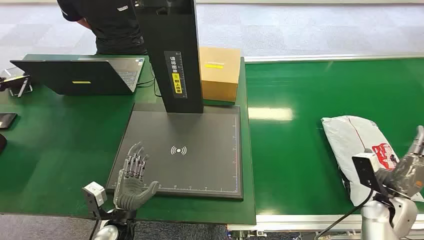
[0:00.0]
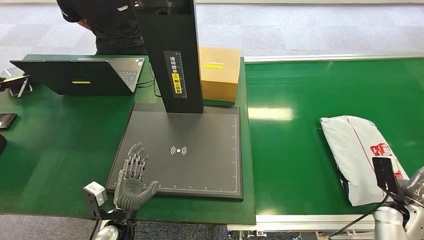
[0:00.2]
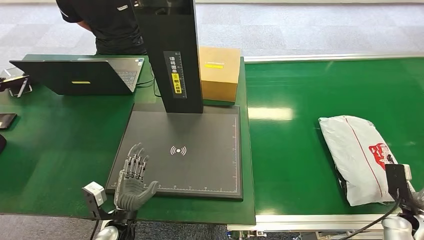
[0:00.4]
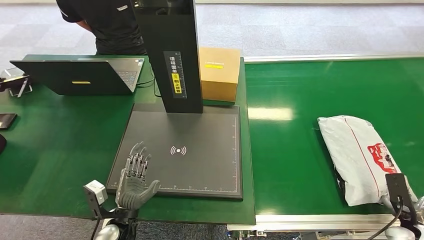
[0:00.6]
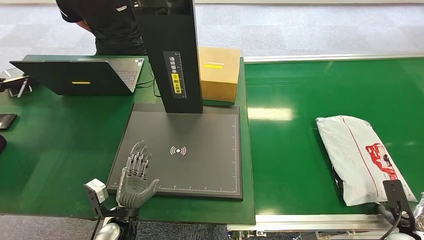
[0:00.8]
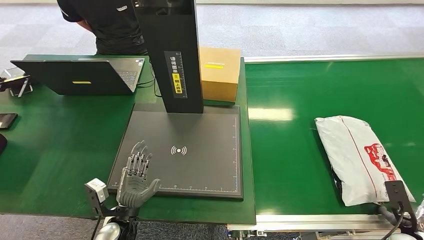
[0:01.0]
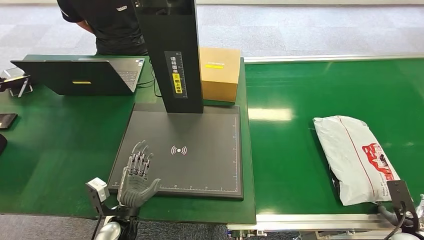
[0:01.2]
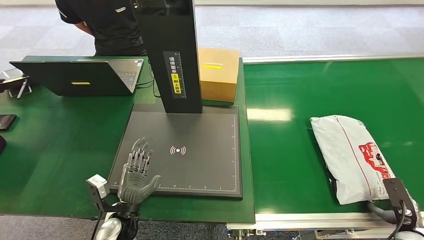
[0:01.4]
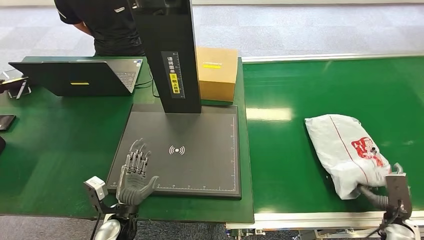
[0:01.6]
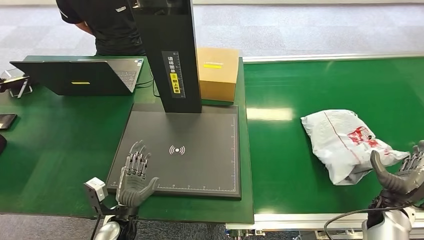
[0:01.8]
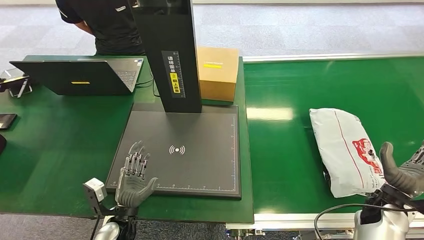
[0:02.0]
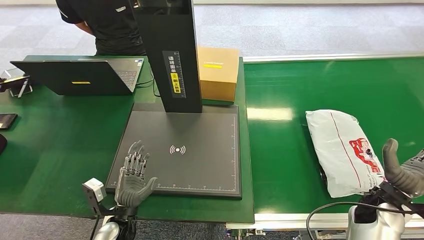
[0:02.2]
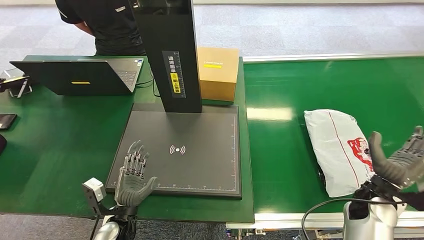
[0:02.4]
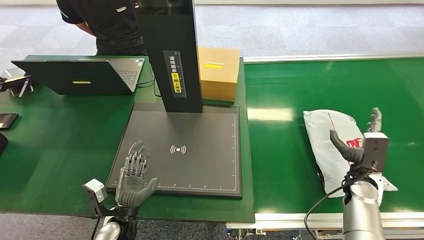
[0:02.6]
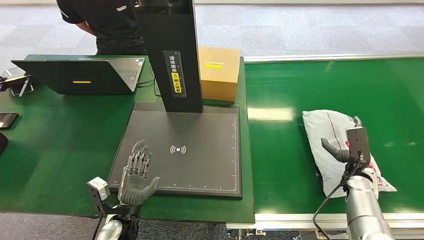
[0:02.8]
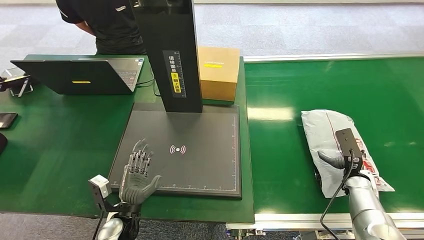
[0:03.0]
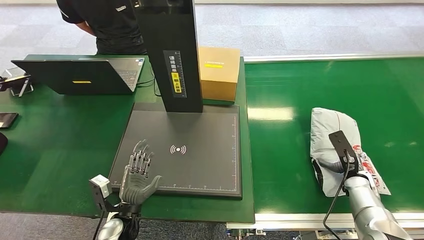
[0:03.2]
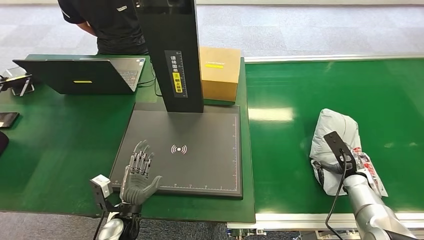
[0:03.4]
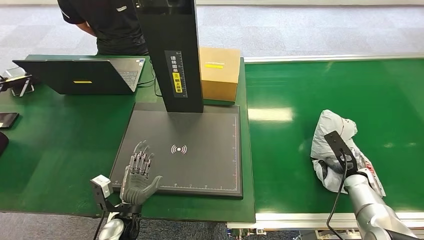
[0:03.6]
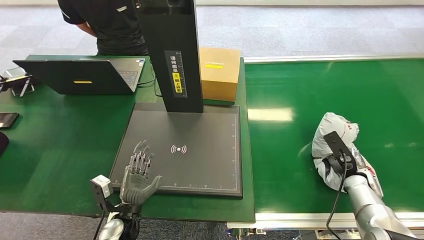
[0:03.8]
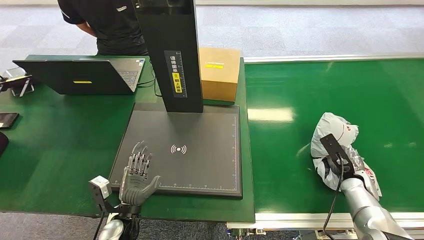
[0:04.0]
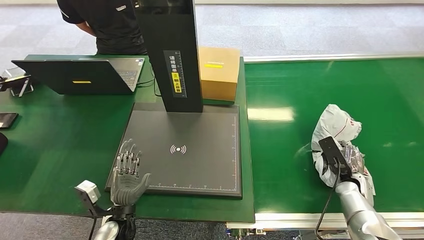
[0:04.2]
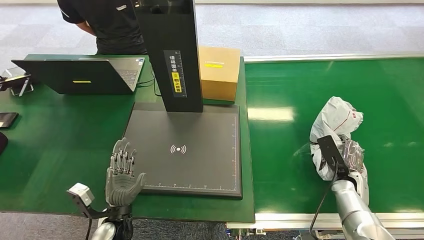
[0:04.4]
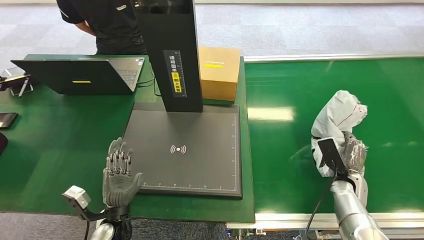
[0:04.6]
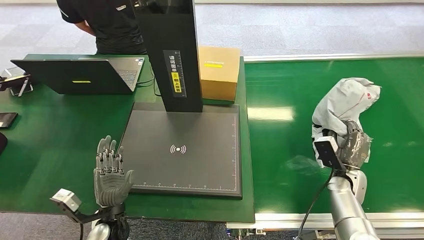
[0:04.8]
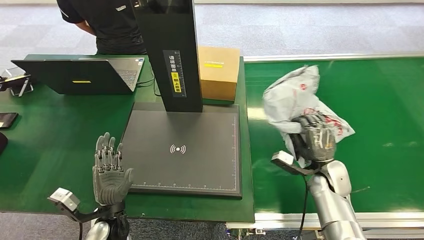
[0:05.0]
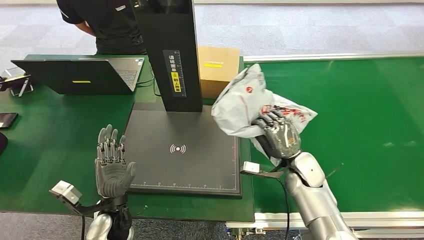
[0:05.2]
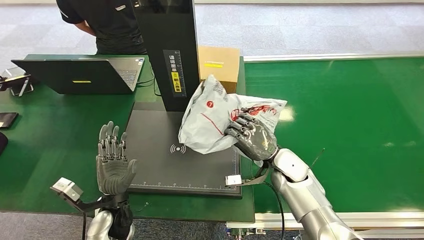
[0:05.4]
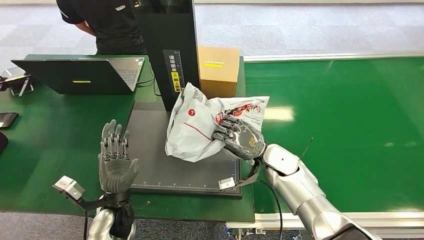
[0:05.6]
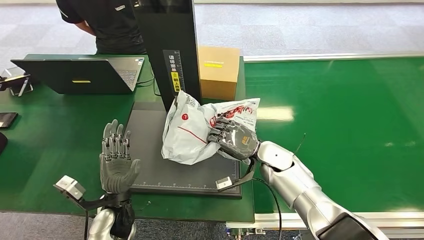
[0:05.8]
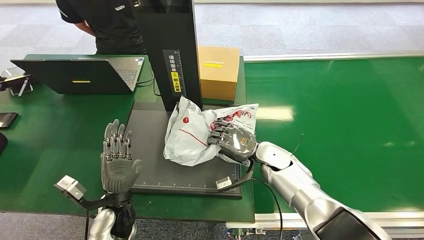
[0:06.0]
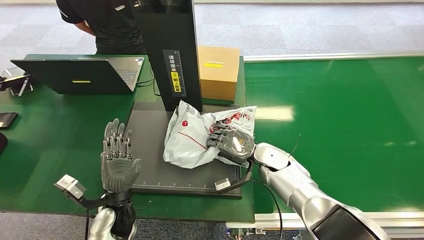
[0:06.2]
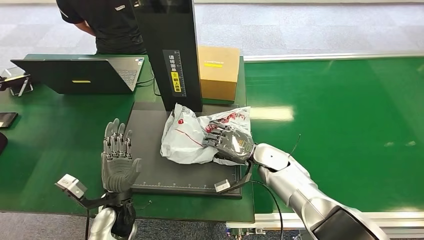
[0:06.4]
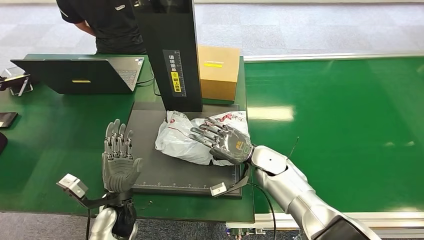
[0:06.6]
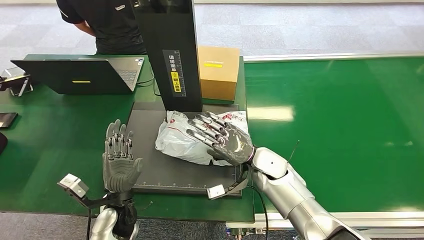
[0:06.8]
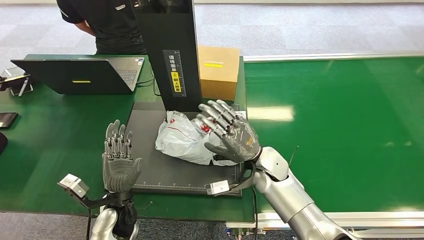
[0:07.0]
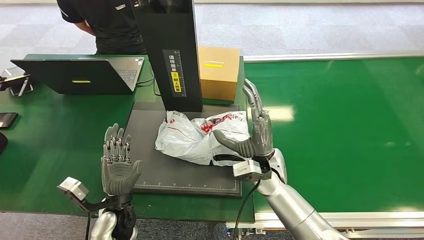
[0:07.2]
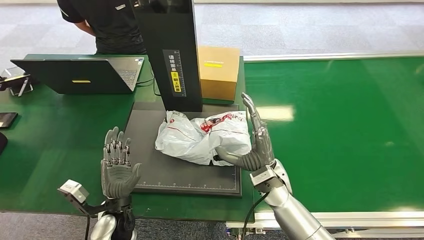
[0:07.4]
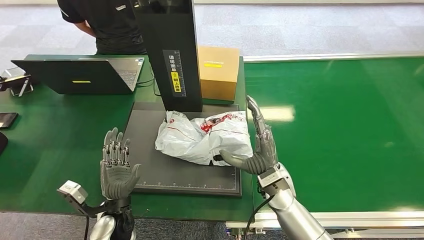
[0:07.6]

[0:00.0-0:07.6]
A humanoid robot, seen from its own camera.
Step, 0:00.0 to 0:04.8: Pick up the package from the conveyor belt.
Step, 0:05.0 to 0:07.6: Place the package onto the inbound machine.
0:01.6 to 0:03.0: The right hand is displaced forward, to the left and upward by approximately 15 cm.
0:06.0 to 0:07.6: The right hand travels backward by some 10 cm.

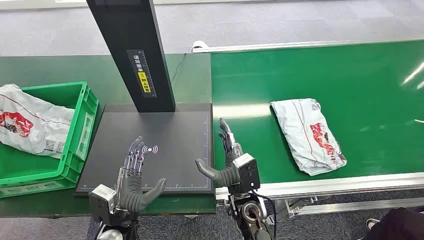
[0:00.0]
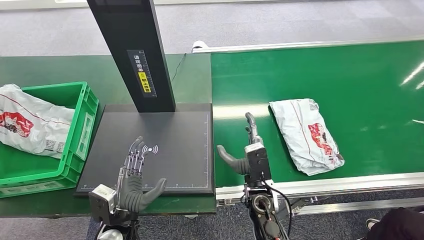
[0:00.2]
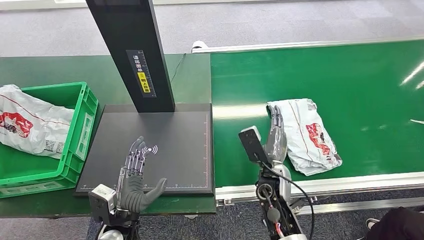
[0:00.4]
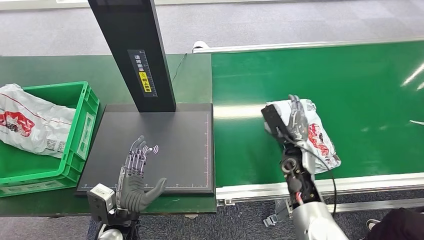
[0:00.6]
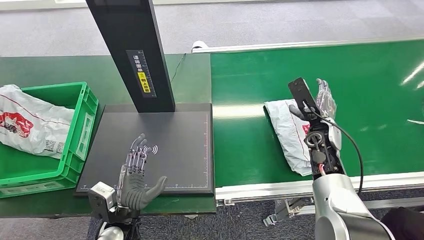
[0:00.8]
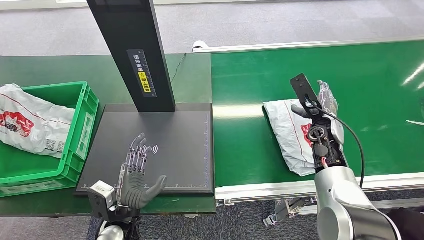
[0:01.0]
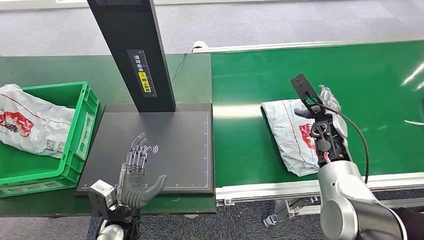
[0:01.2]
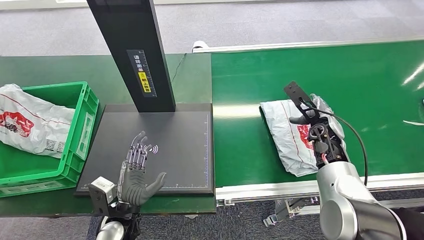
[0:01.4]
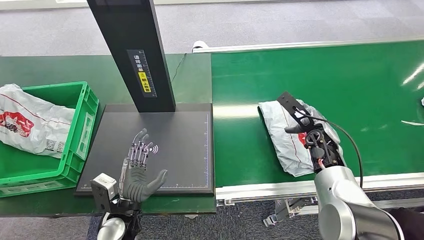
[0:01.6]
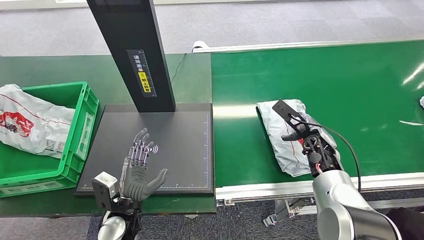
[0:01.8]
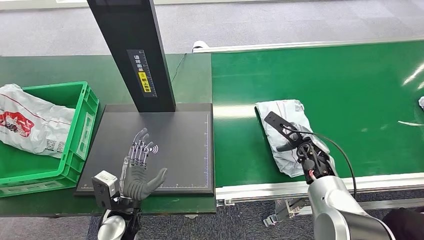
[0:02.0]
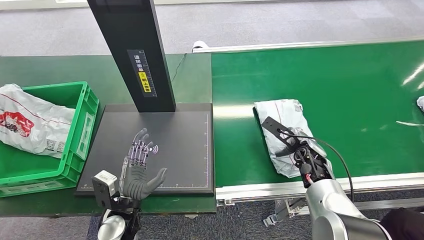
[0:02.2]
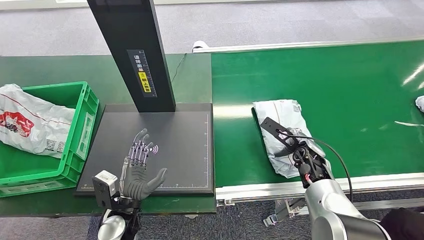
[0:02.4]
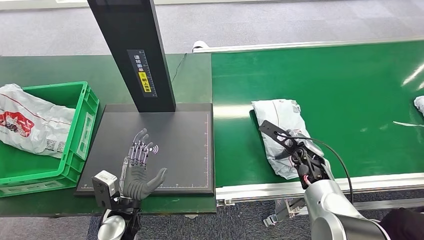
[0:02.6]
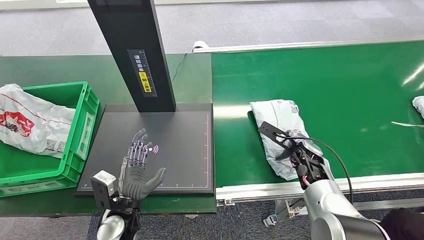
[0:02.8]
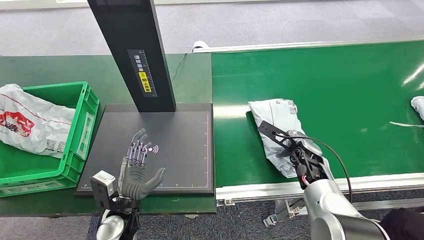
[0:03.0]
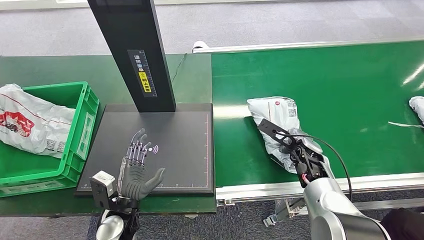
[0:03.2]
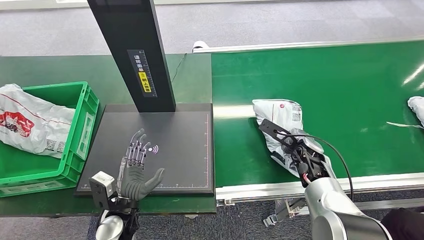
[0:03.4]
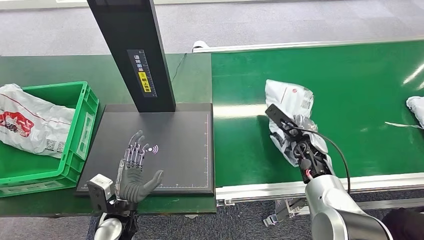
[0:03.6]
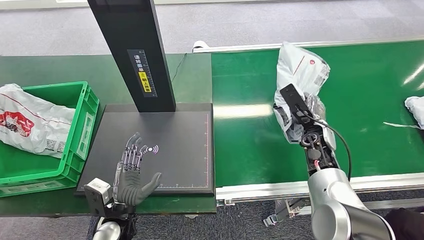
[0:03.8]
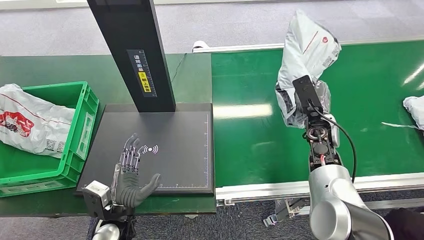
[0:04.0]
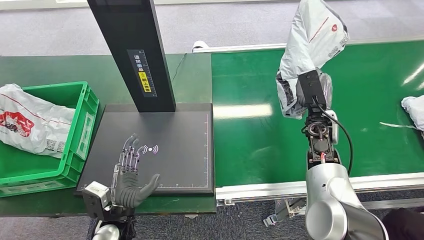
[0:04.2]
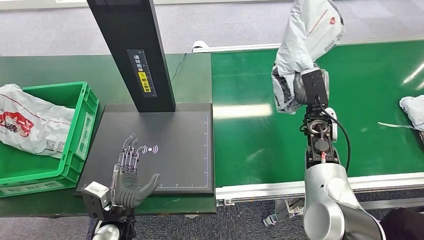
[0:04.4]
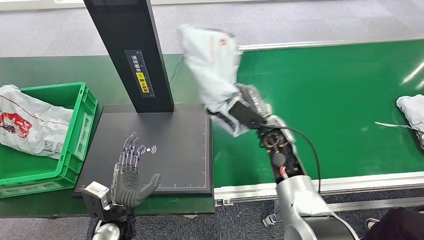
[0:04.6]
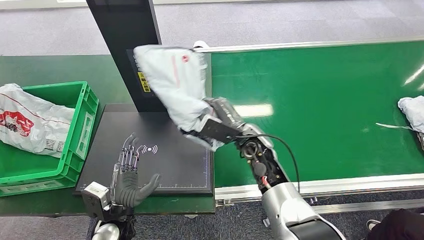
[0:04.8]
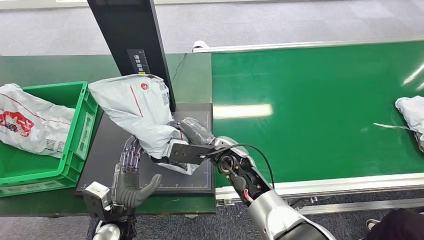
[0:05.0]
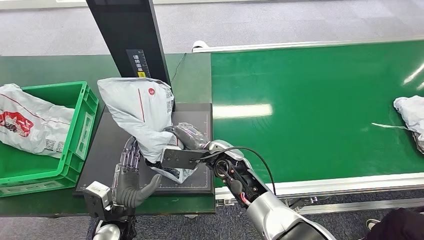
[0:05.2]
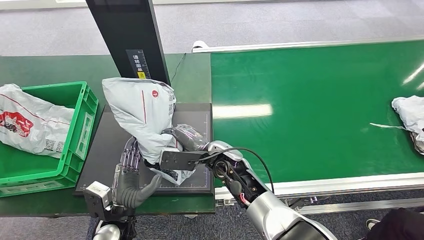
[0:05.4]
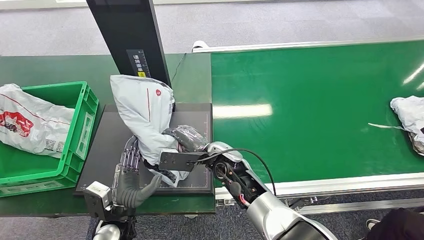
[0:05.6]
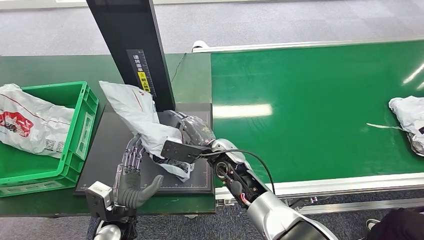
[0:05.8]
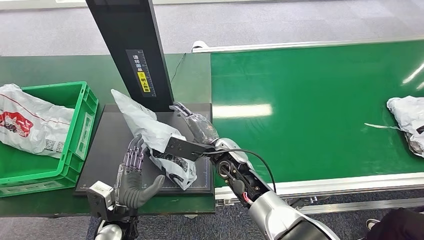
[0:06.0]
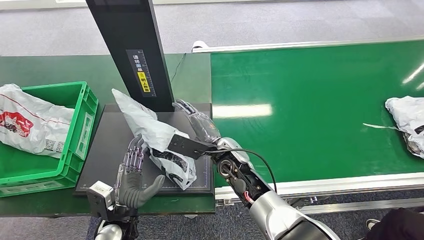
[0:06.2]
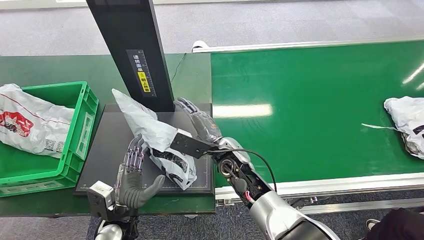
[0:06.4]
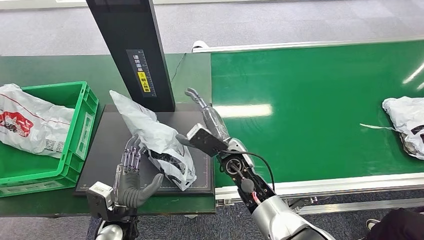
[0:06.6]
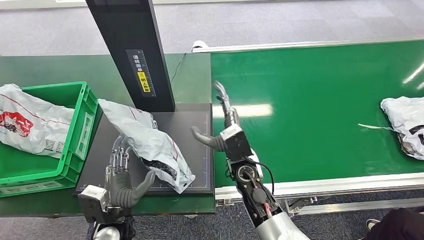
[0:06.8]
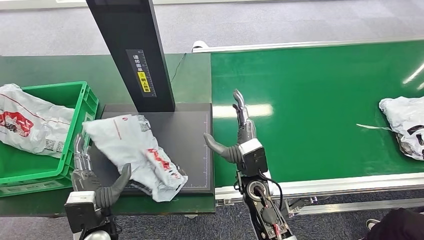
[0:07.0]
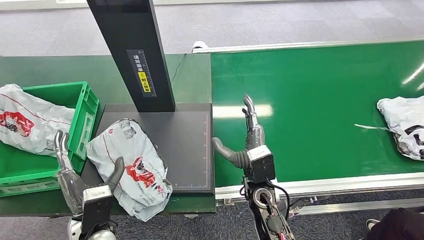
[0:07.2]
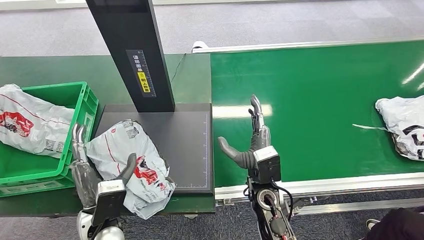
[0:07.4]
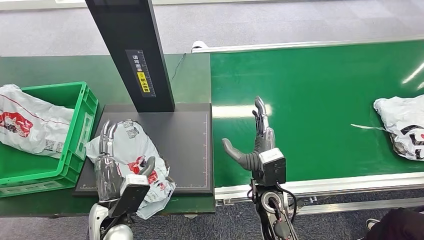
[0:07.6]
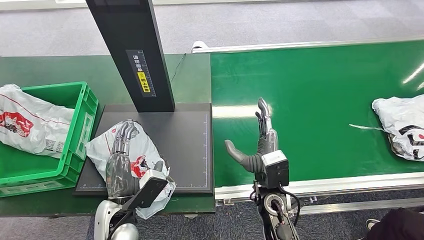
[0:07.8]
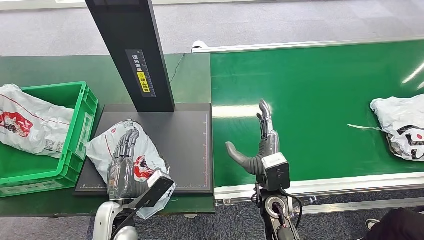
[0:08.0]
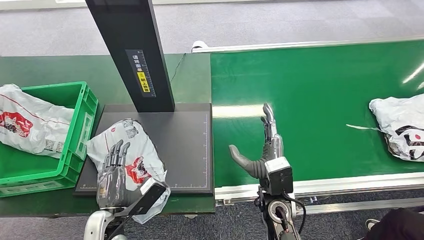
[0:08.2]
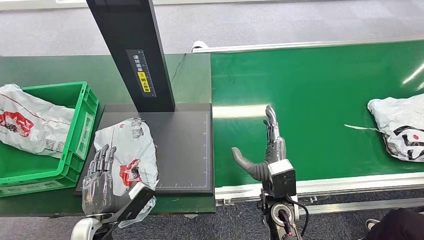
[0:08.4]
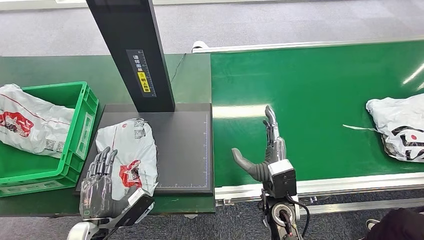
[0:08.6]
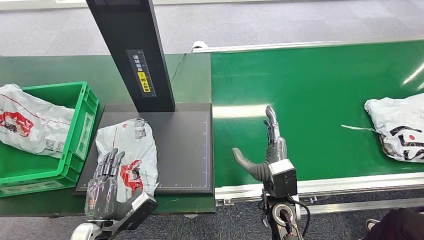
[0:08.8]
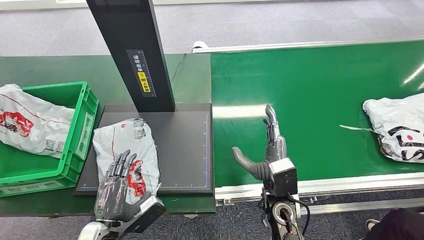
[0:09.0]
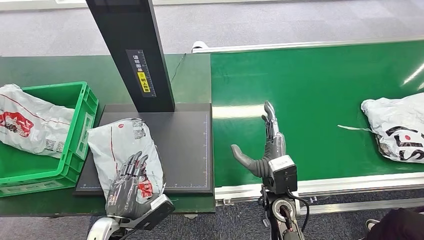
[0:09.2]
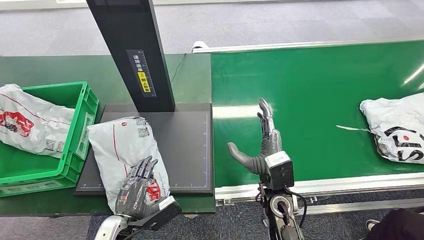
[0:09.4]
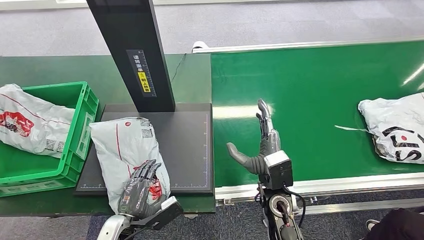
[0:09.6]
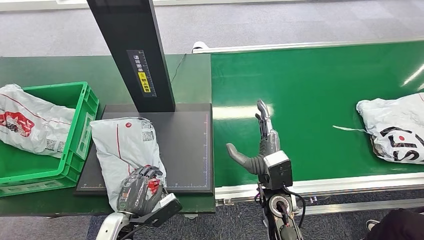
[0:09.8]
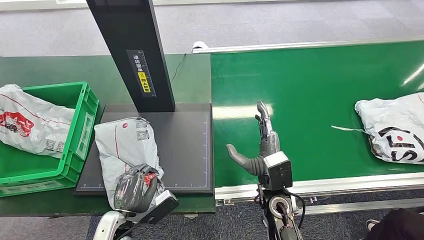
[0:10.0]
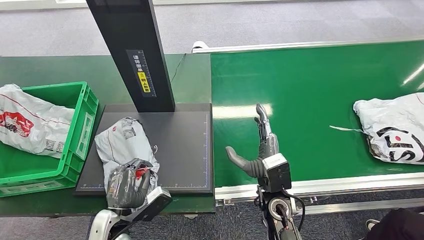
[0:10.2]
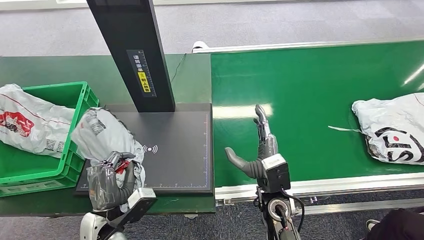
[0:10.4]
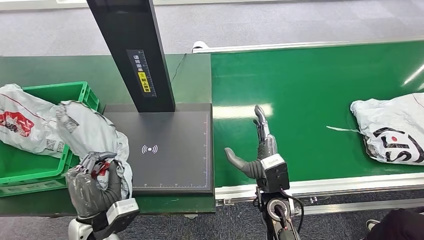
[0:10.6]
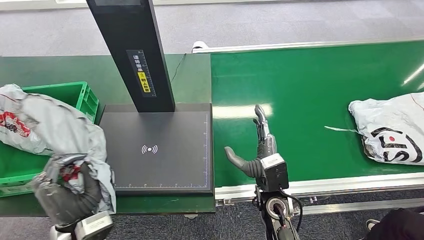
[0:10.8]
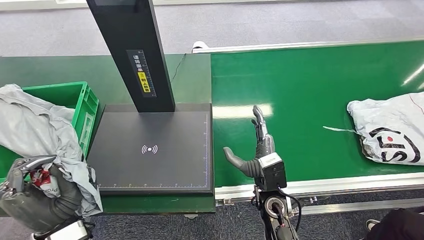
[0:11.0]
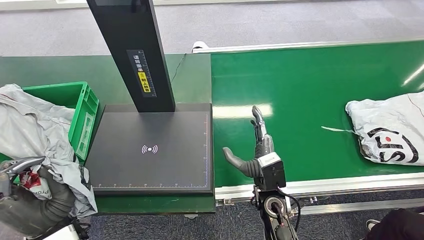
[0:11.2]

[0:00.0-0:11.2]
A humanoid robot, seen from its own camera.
Step, 0:00.0 to 0:04.0: Pick up the package from the conveyor belt.
Step, 0:04.4 to 0:07.4: Place the package onto the inbound machine.
Step, 0:07.8 to 0:10.6: Pick up the package from the inbound machine.
0:01.6 to 0:03.2: The right hand moves about 5 cm.
0:06.4 to 0:08.0: The right hand is displaced backward and to the right by about 10 cm.
0:08.0 to 0:09.6: The left hand shifts by some 5 cm.
